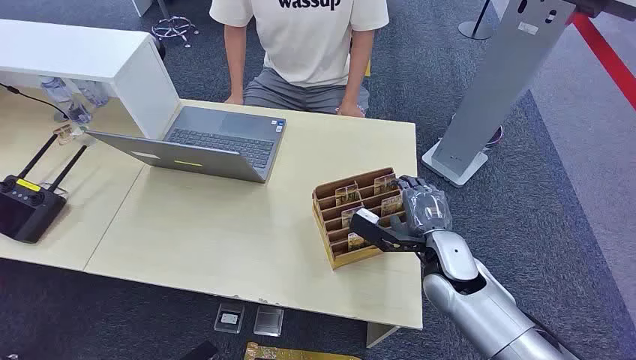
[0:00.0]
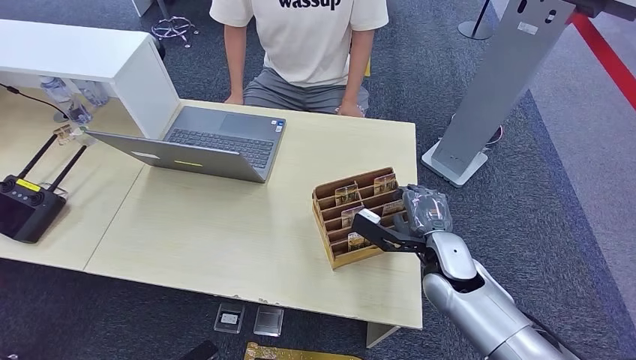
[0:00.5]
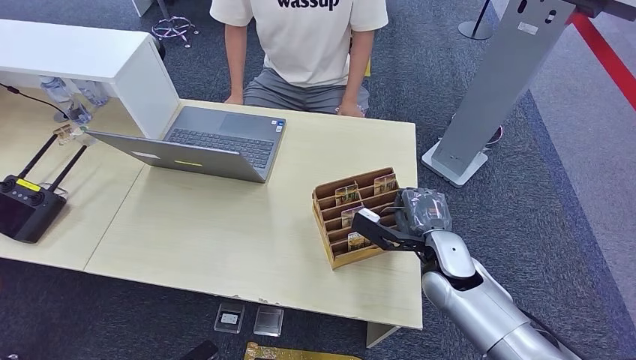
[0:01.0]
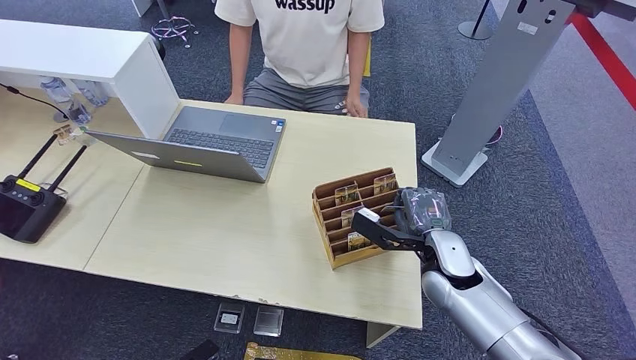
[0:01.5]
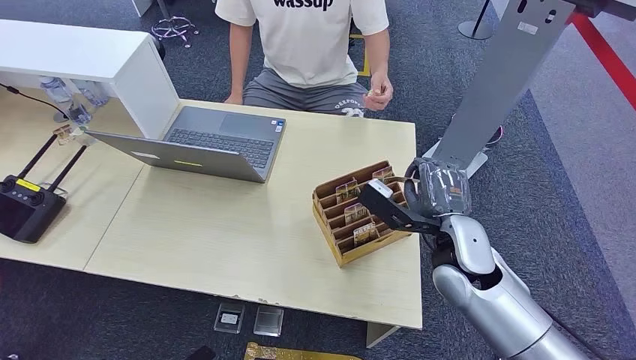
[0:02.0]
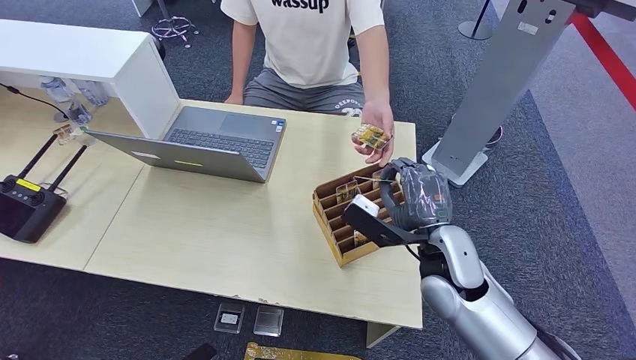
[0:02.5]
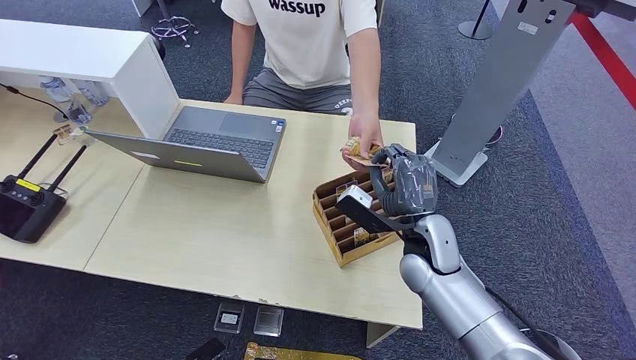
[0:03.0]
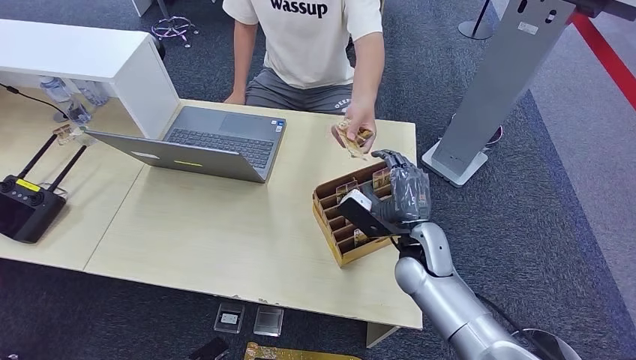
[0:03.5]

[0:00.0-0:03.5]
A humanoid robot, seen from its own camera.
Step, 0:00.0 to 0:01.5: Pick up the key card from the card box.
Step, 0:02.5 to 0:03.5: Hand the key card to the target.
0:02.0 to 0:03.5: The right hand shifts about 5 cm downward.

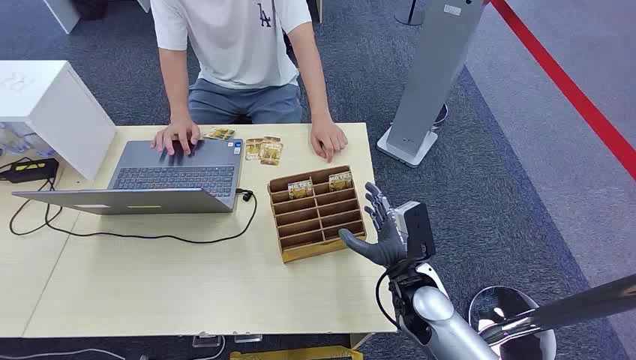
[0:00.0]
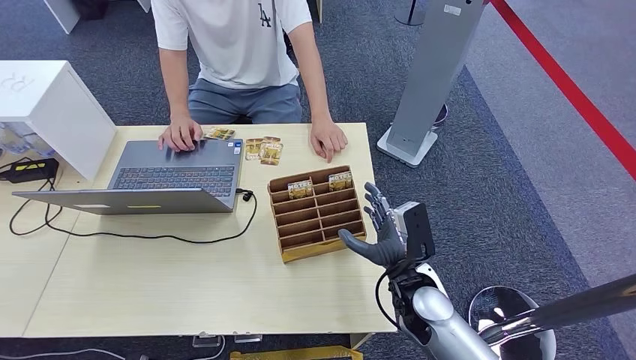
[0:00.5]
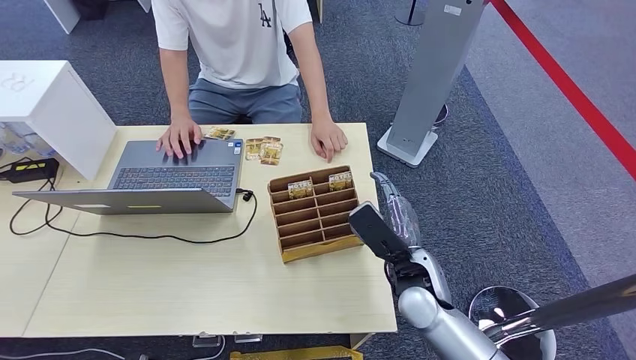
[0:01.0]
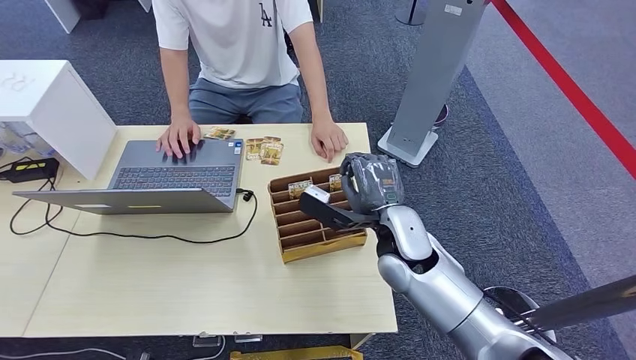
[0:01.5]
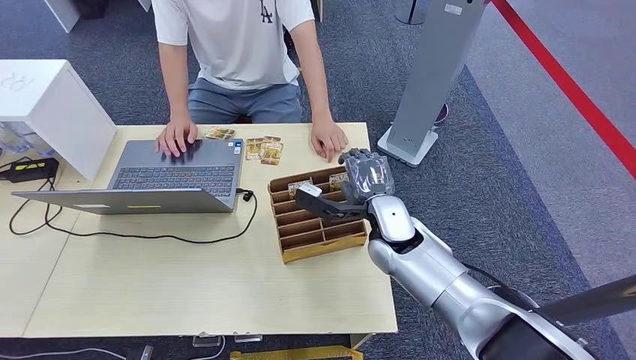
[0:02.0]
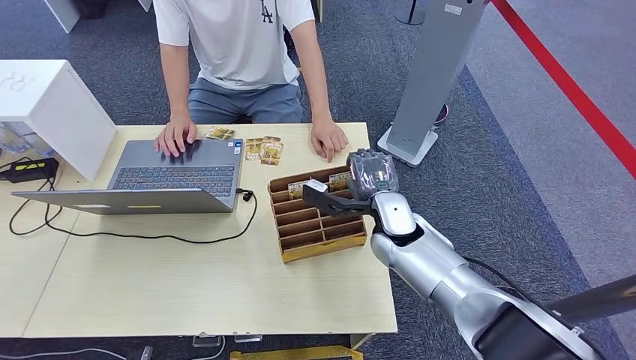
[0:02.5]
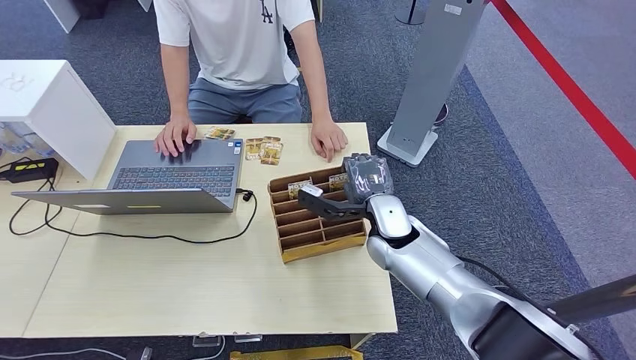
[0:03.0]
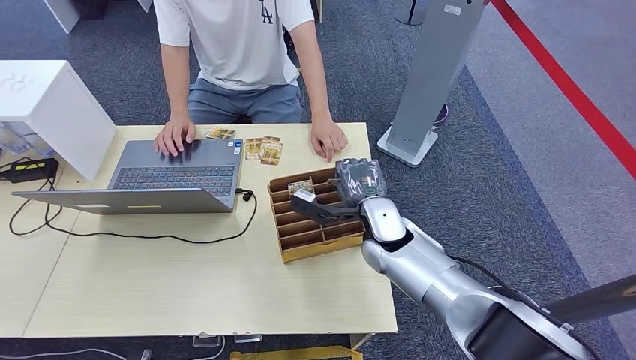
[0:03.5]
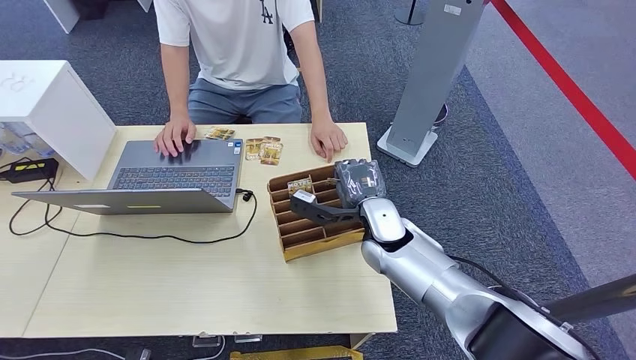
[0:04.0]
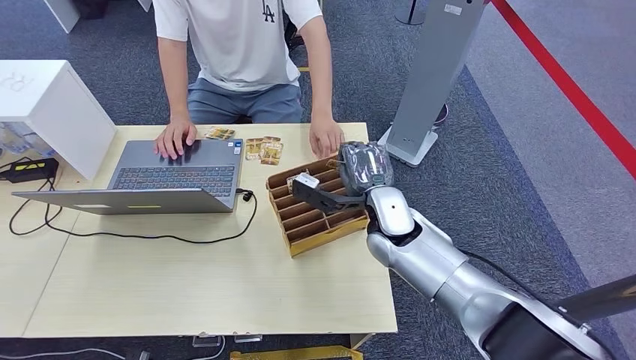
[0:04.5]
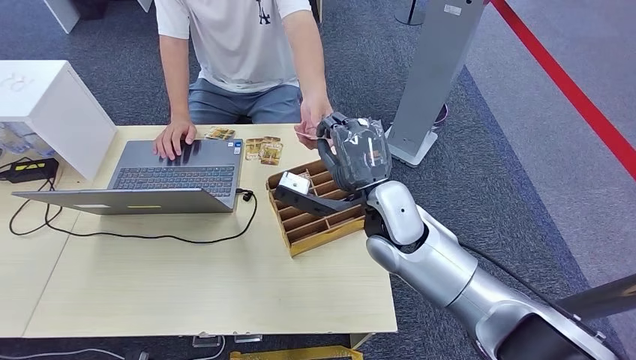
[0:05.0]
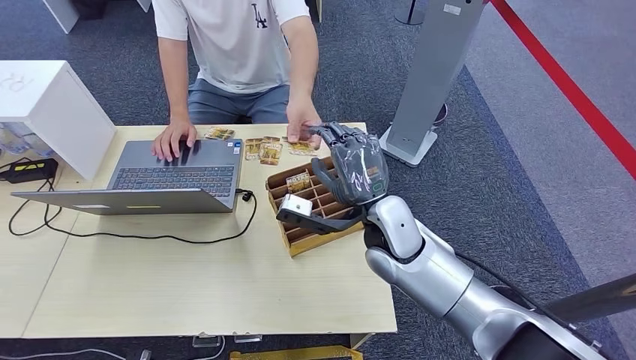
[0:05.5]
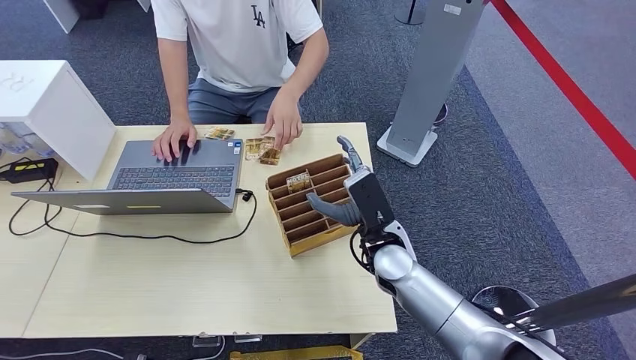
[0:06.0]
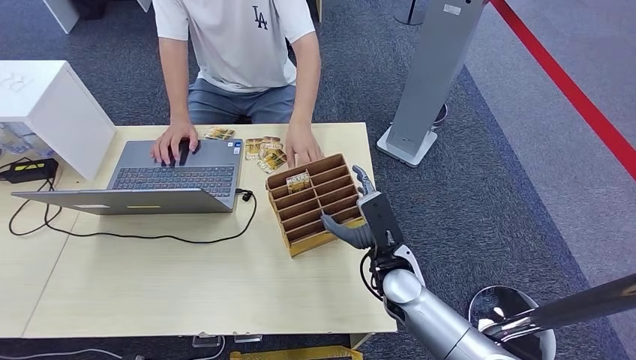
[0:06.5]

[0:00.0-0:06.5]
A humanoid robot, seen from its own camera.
Step, 0:00.0 to 0:04.0: Pick up the key card from the card box.
Step, 0:04.5 to 0:06.5: Hand the key card to the target.
0:02.0 to 0:04.5: The hands move only a little.
0:04.5 to 0:06.5: The right hand heads downward and backward, covering roughly 10 cm.
